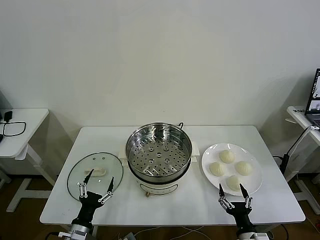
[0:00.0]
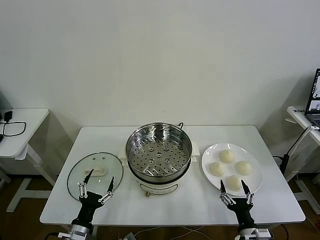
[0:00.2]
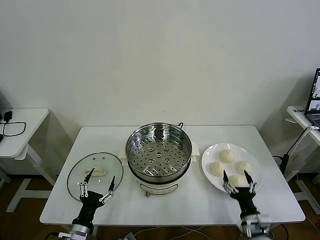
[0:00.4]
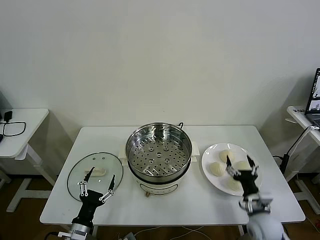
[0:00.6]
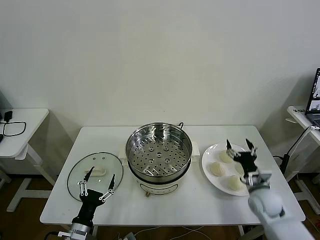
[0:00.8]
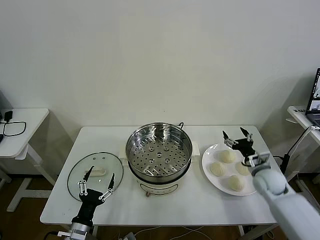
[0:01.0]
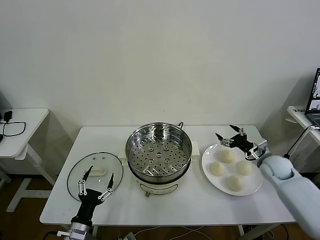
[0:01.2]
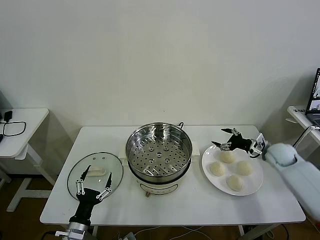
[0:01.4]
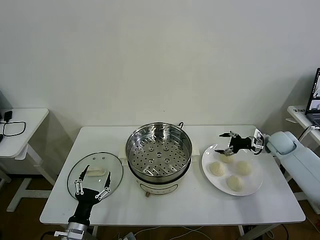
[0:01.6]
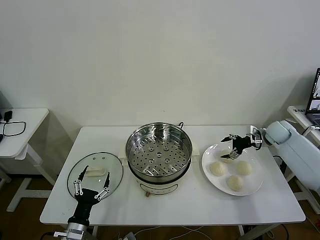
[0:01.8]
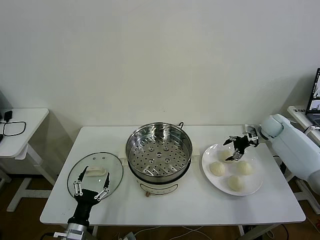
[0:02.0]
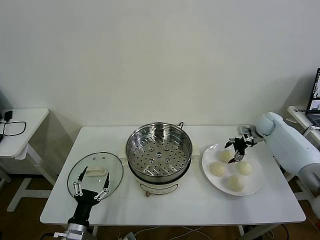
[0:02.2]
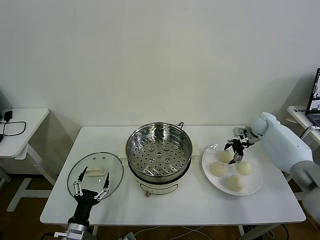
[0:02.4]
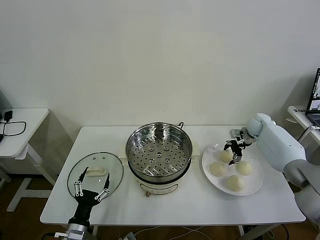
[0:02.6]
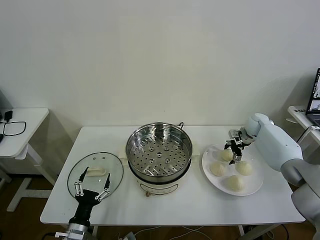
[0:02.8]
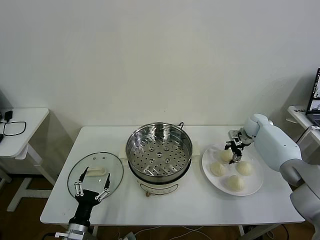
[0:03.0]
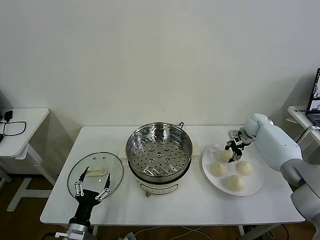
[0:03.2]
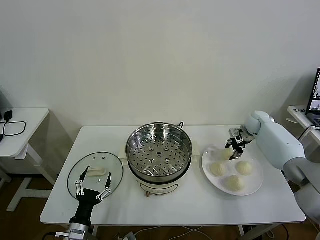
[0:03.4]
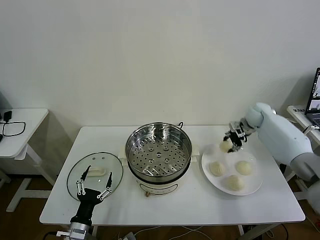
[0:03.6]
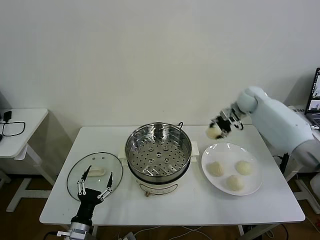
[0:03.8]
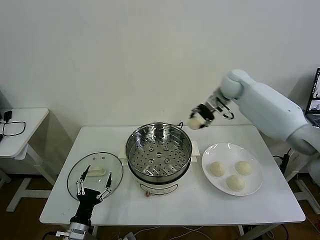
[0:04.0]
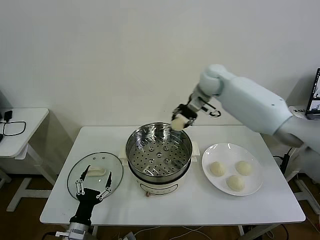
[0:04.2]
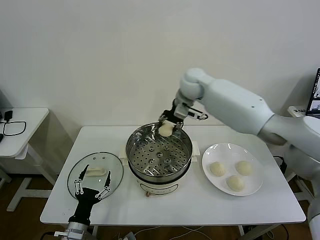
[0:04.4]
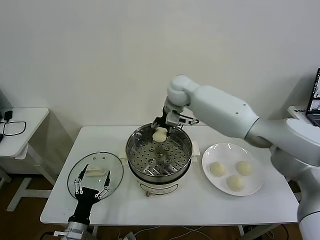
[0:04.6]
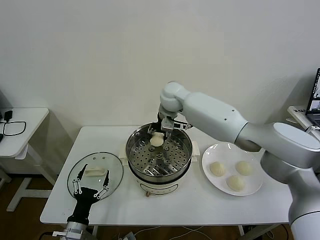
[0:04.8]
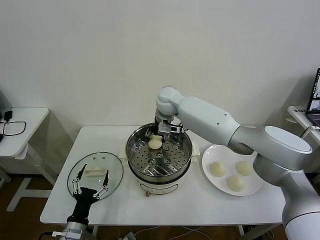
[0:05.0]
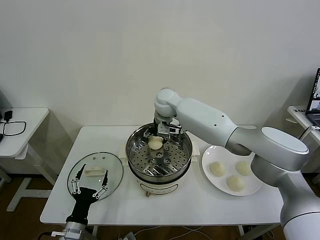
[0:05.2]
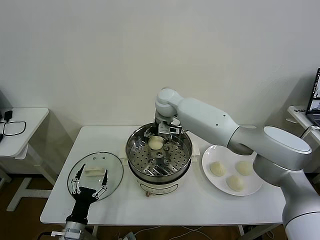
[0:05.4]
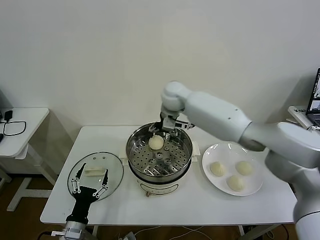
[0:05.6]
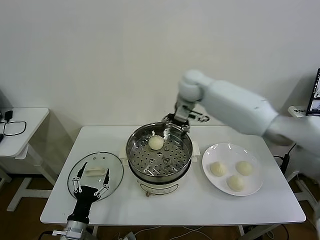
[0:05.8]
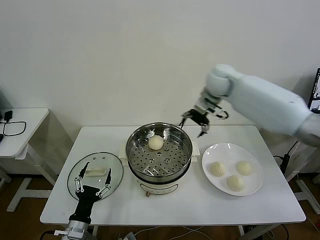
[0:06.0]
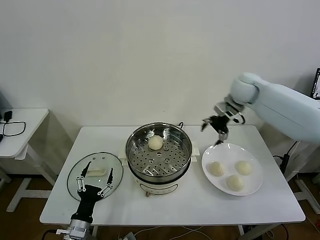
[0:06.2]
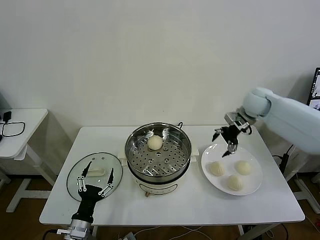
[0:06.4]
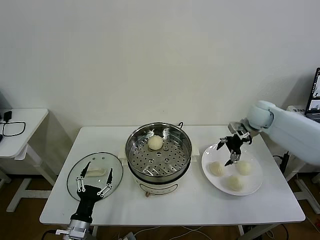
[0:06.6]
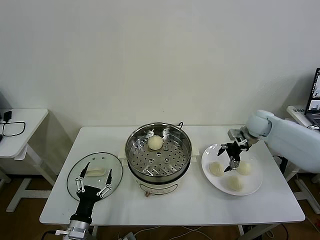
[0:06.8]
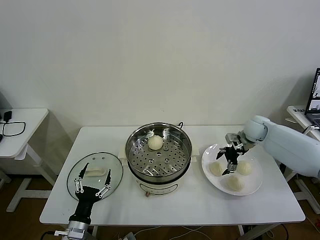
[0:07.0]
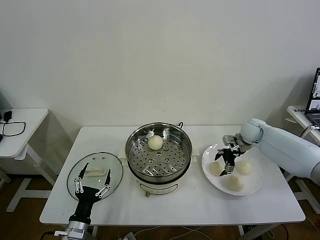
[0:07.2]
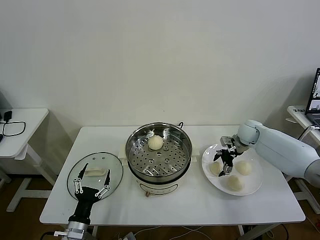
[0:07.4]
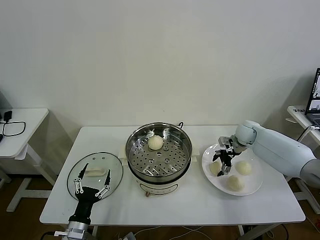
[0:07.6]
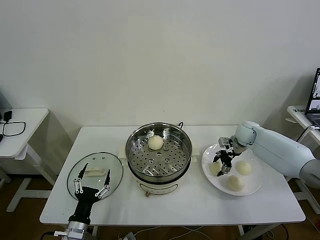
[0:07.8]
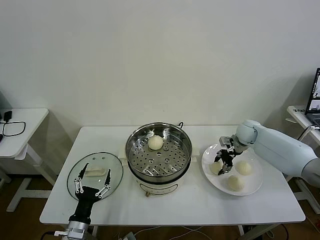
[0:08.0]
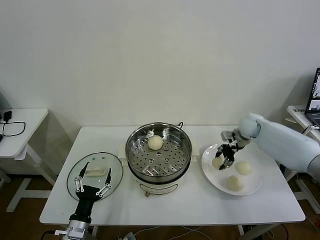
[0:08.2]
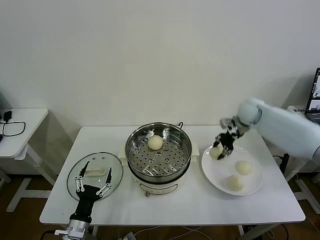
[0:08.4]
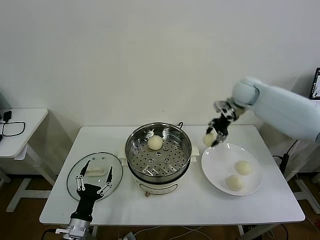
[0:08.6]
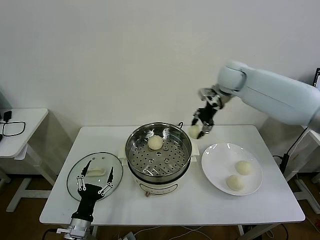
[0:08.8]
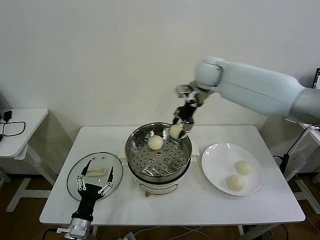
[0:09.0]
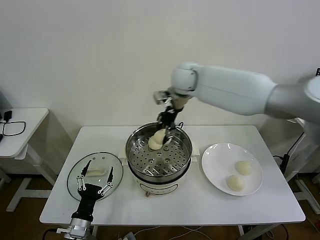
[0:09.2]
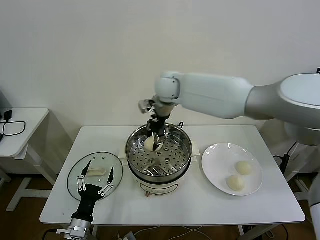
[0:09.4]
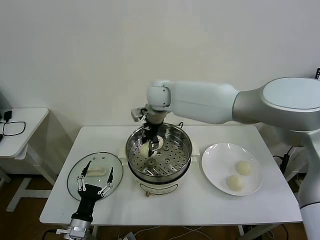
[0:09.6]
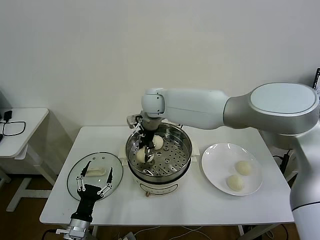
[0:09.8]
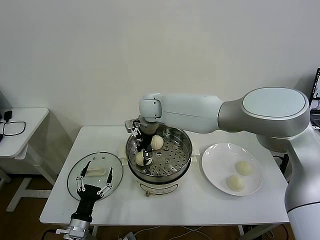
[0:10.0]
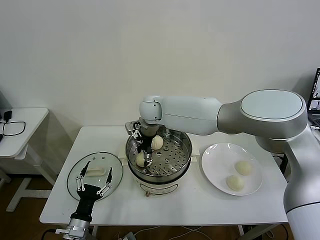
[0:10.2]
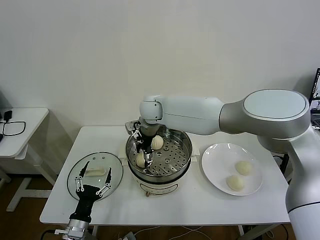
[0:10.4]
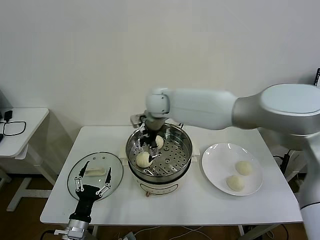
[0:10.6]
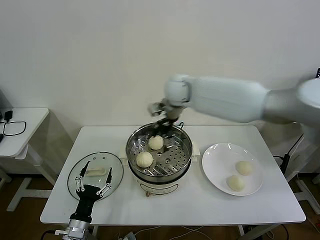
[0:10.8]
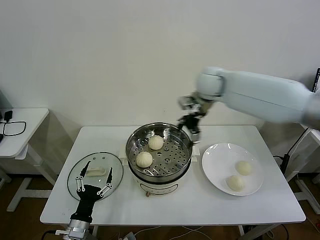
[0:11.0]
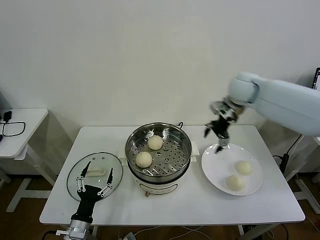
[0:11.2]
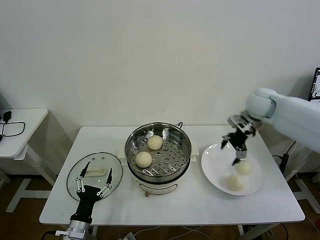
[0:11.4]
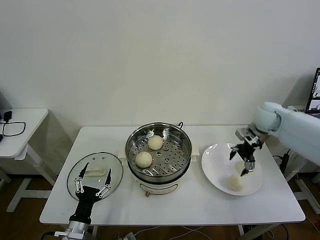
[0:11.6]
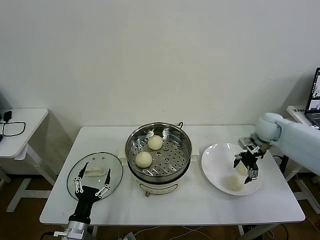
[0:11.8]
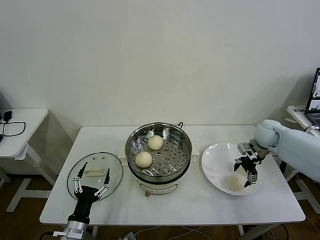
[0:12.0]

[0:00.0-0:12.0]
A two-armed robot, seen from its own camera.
Task of the whole recording: take steamed baozi put them in steamer then cover it.
Step, 0.0 to 3.2 s: Grasp the baozi in the plate with right gripper.
Step, 3.4 to 5.6 s: Place the baozi on the steamer with right gripper.
Step, 5.8 to 7.8 s: Grasp the baozi in the plate with right gripper.
Step, 8.0 to 10.6 s: Place the baozi on the steamer with right gripper.
1.6 to 3.0 s: The right gripper shifts approximately 10 cm forward and to the left, and closes up.
3.0 to 4.4 s: The right gripper goes roughly 40 cm to the left and upward.
4.4 to 6.0 s: The right gripper moves to the right, some 15 cm, and opens.
6.0 to 7.6 s: The right gripper goes roughly 25 cm downward and to the right.
7.6 to 9.0 s: The right gripper goes about 35 cm upward and to the left, and closes its fingers.
9.0 to 10.4 s: The right gripper goes approximately 15 cm to the left and downward, and opens its fingers.
10.4 to 12.0 s: The right gripper goes roughly 40 cm to the right.

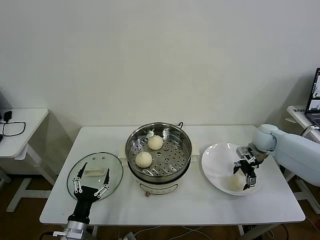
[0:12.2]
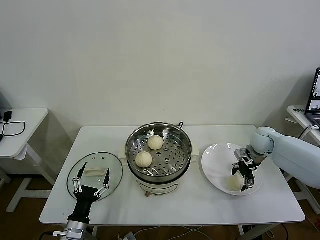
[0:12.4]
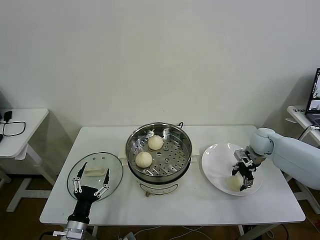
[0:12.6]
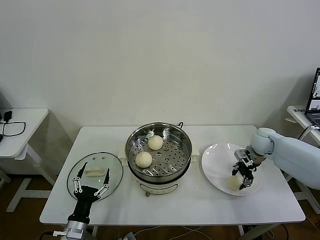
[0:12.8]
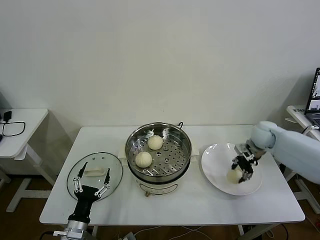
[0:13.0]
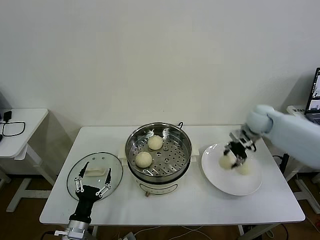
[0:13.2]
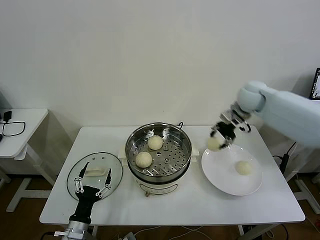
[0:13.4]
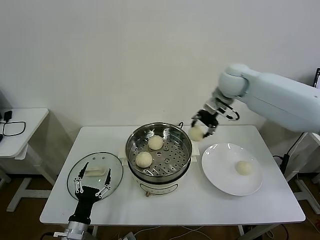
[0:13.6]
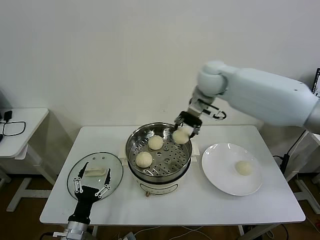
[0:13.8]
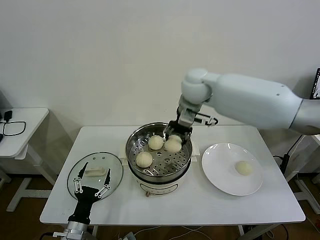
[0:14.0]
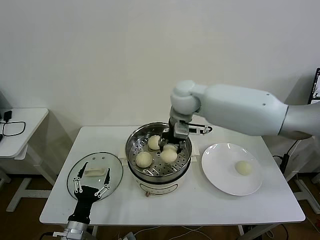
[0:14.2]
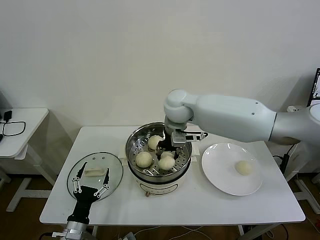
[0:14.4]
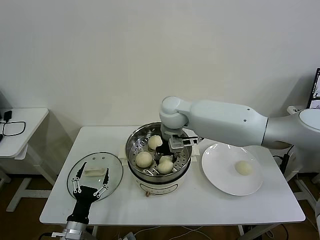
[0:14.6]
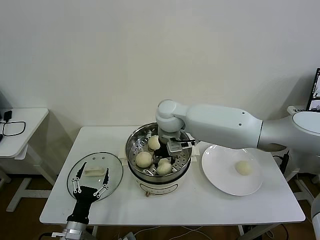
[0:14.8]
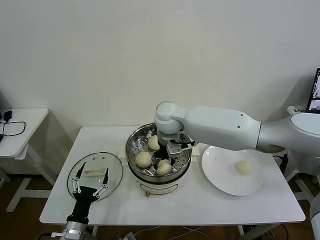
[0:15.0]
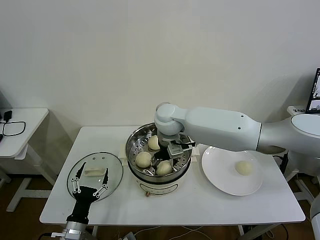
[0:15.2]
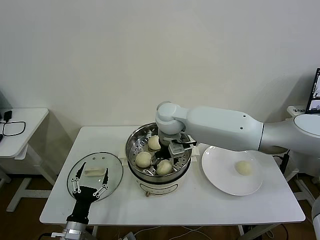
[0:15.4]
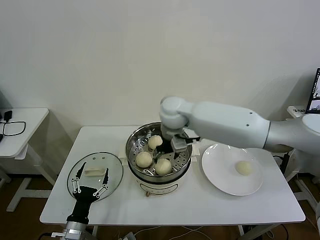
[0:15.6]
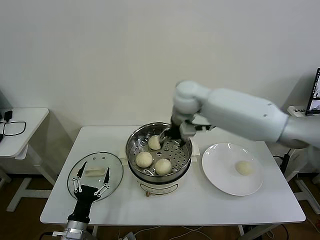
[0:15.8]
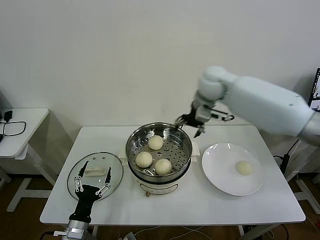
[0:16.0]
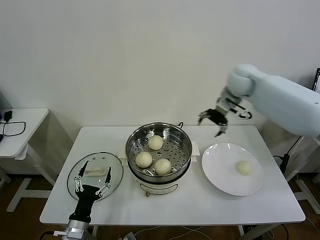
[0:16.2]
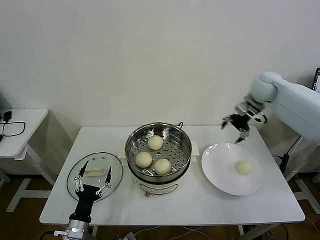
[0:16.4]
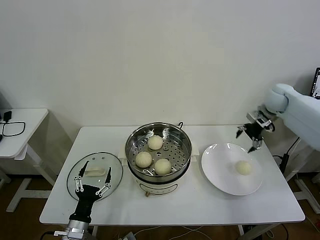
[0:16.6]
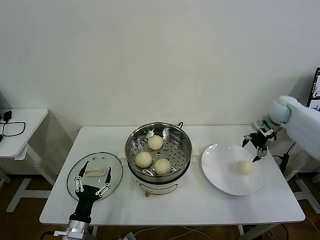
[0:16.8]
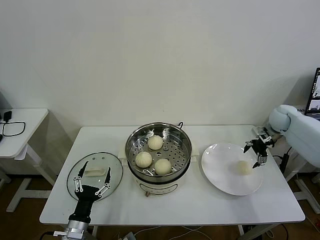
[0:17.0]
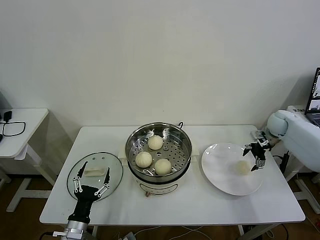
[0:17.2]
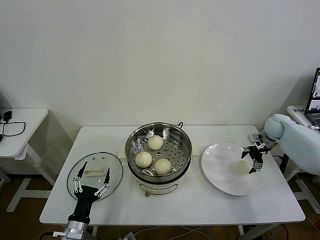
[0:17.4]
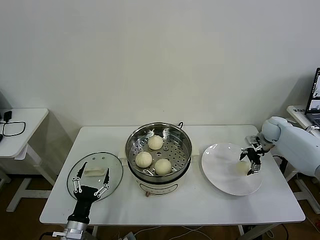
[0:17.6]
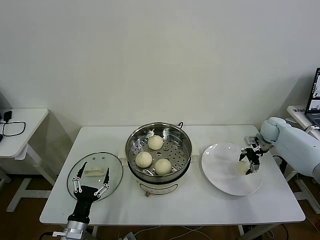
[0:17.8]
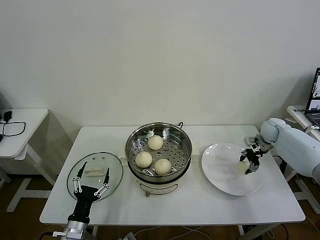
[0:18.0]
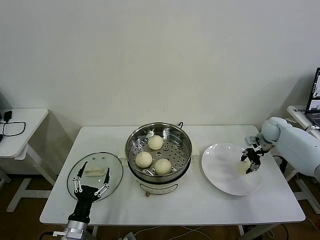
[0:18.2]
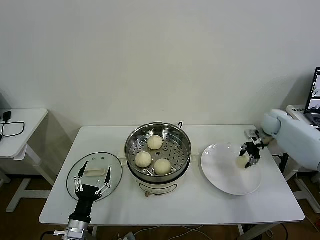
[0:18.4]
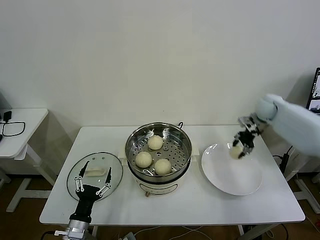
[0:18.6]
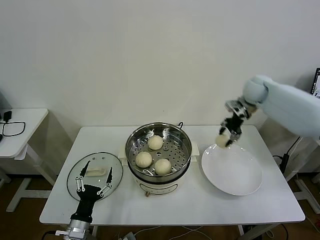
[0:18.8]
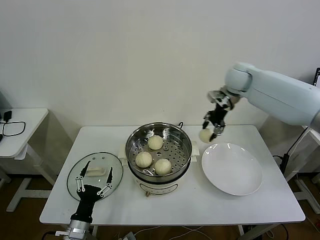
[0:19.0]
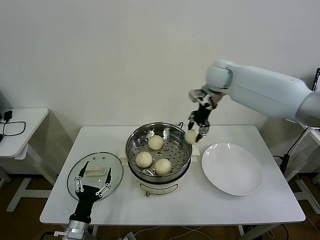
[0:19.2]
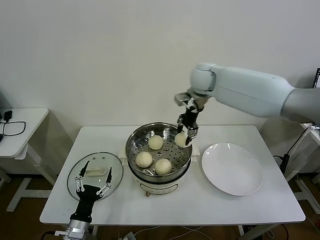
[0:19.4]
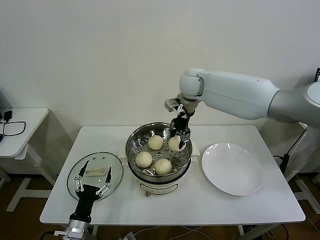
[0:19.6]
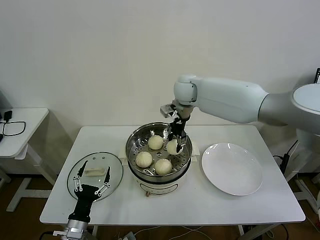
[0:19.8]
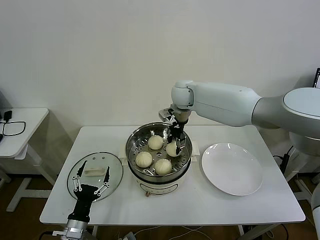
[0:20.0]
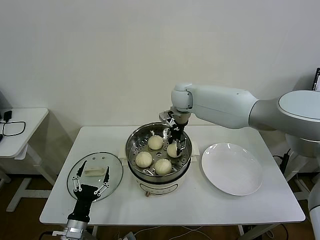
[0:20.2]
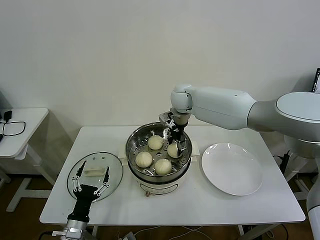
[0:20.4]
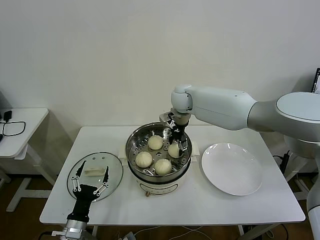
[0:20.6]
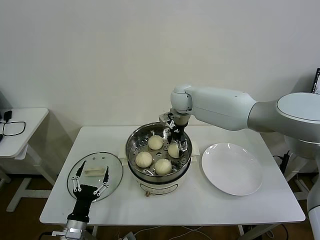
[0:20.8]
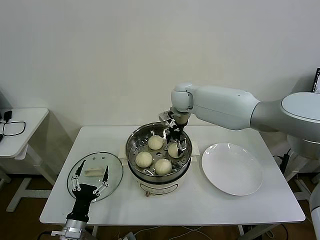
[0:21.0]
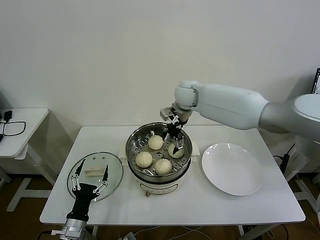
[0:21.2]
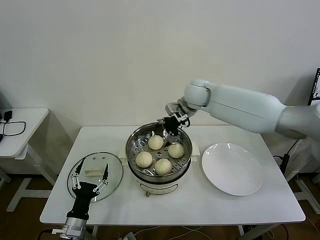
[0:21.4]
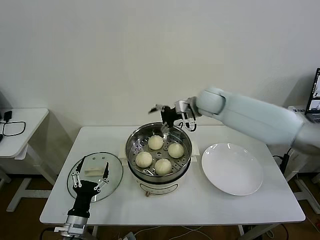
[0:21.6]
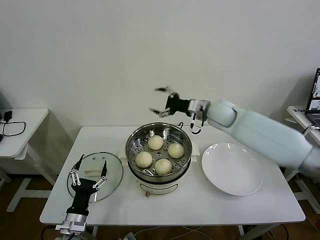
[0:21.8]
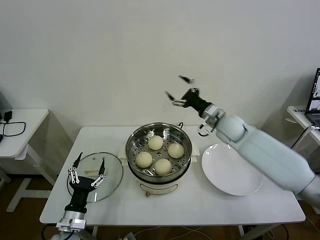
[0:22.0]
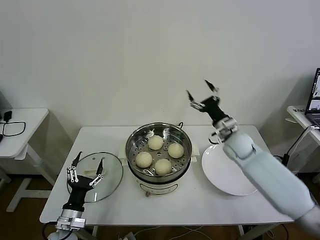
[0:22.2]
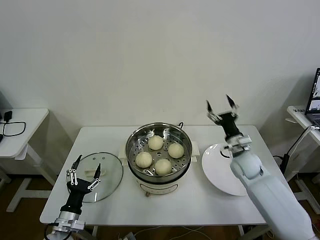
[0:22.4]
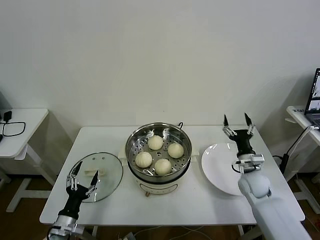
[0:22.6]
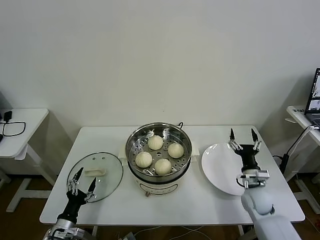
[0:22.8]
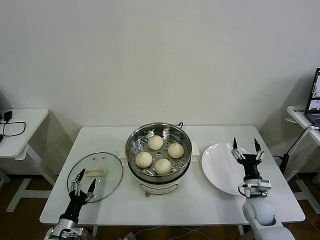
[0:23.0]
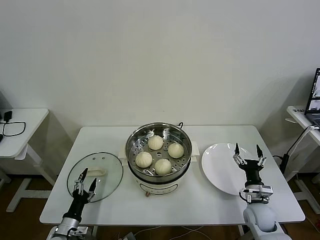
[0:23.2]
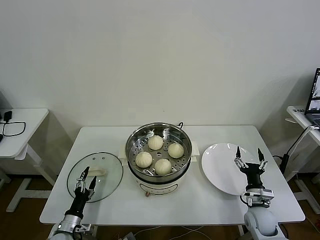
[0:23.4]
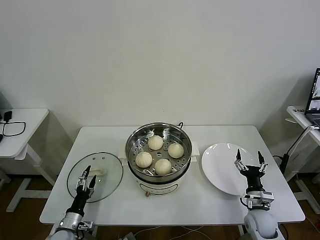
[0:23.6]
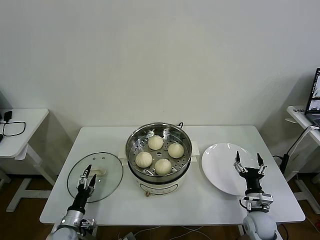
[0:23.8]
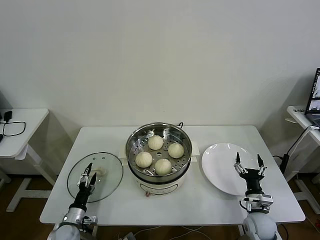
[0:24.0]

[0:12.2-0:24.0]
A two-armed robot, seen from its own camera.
Task of the whole recording: take steamed baozi put them in steamer then cover it.
Step, 13.2 to 15.4 s: Place the baozi on the steamer with right gripper.
Step, 15.6 to 18.0 s: Grasp the baozi in the plate with right gripper.
Step, 18.2 to 20.8 s: Place the baozi on the steamer with right gripper.
12.2 to 13.6 s: The right gripper heads upward and to the left, covering some 30 cm, and closes.
13.6 to 15.2 s: The right gripper moves to the left and downward, some 20 cm, and opens up.
15.2 to 16.6 s: The right gripper is displaced to the right by approximately 40 cm.
16.6 to 18.2 s: The right gripper shifts some 15 cm downward, and closes.
18.2 to 19.6 s: The right gripper is displaced to the left and upward by about 40 cm.
19.6 to 21.0 s: The right gripper moves downward, about 5 cm, and opens.
21.0 to 22.6 s: The left gripper travels to the left by approximately 5 cm; the right gripper moves to the right, downward and backward, some 40 cm.
22.6 to 24.0 s: The right gripper moves backward and downward, roughly 15 cm. Meanwhile the left gripper moves downward, some 5 cm.
